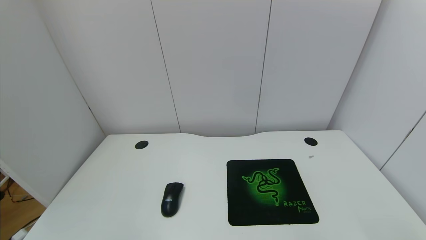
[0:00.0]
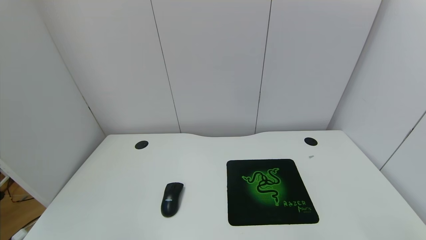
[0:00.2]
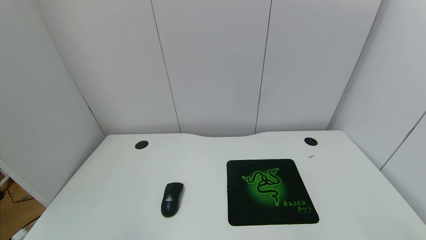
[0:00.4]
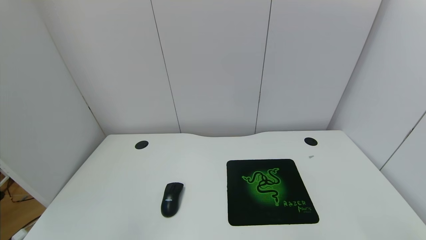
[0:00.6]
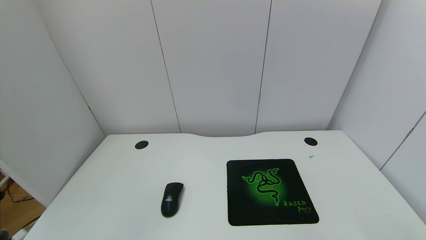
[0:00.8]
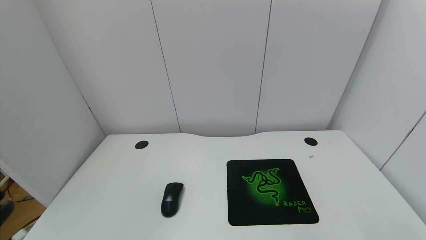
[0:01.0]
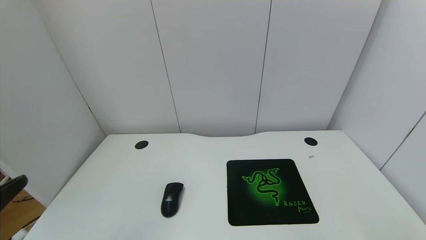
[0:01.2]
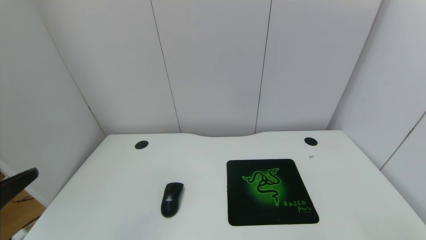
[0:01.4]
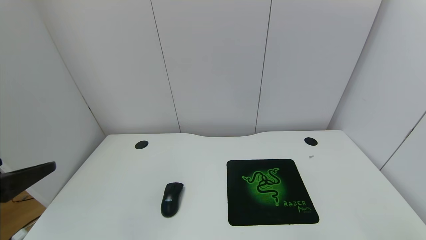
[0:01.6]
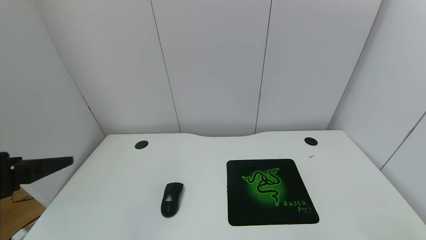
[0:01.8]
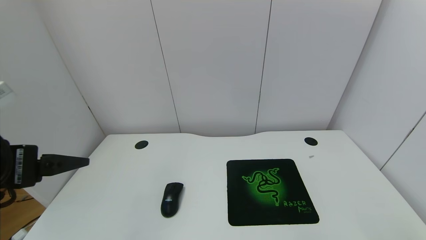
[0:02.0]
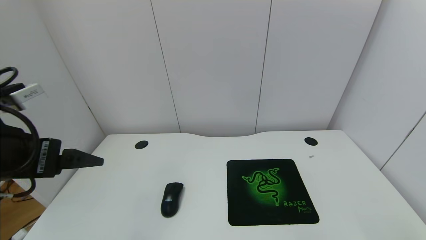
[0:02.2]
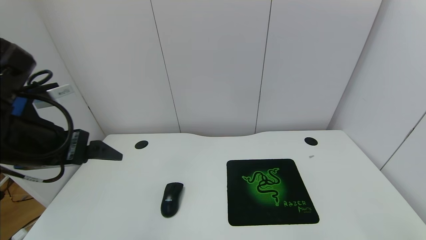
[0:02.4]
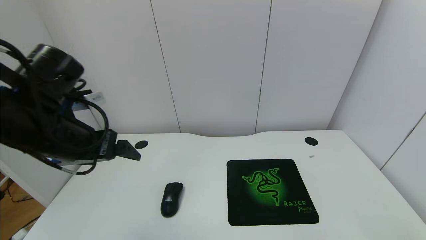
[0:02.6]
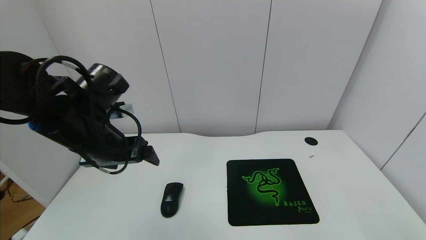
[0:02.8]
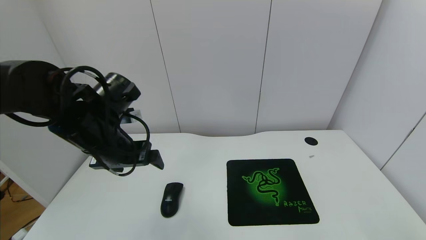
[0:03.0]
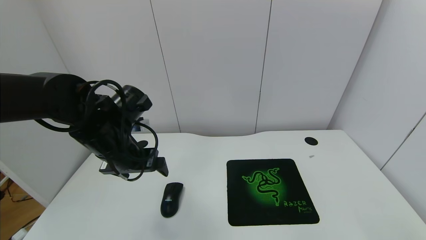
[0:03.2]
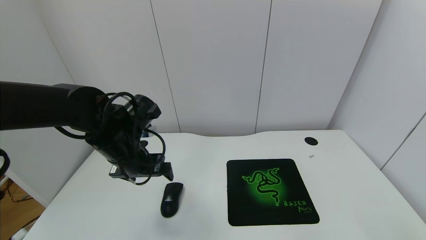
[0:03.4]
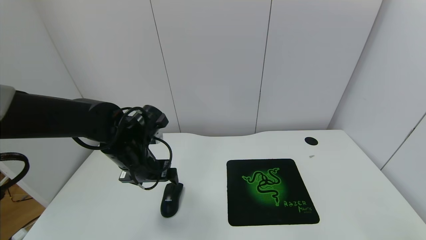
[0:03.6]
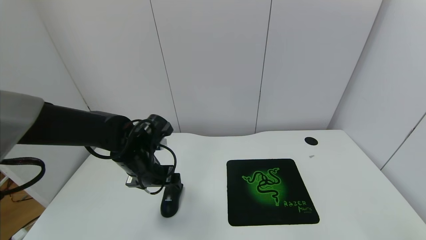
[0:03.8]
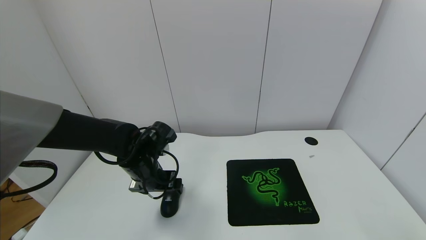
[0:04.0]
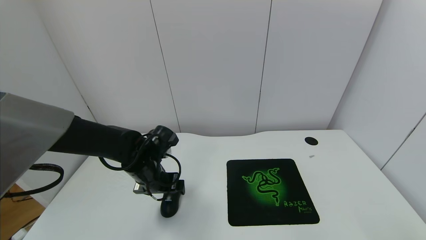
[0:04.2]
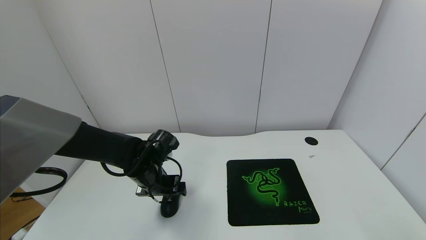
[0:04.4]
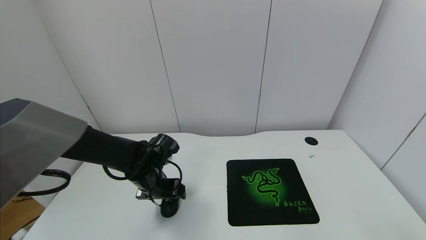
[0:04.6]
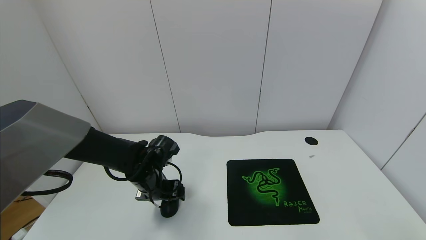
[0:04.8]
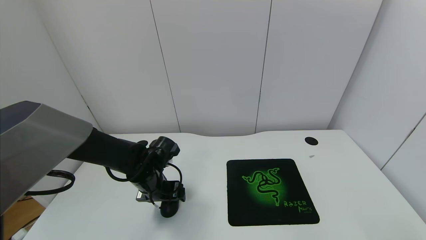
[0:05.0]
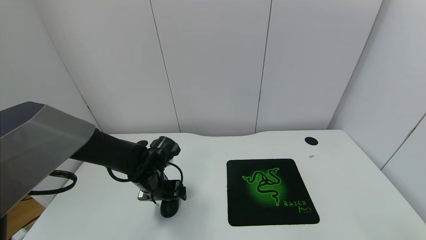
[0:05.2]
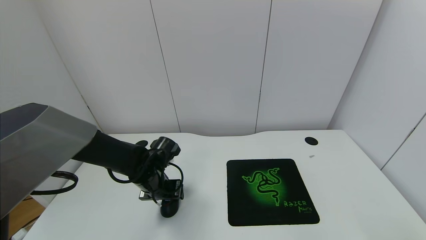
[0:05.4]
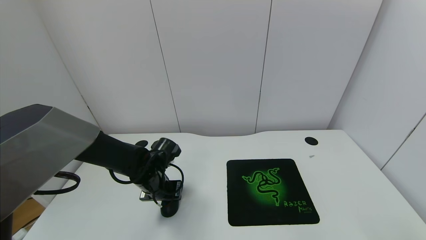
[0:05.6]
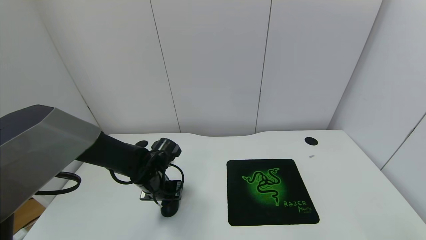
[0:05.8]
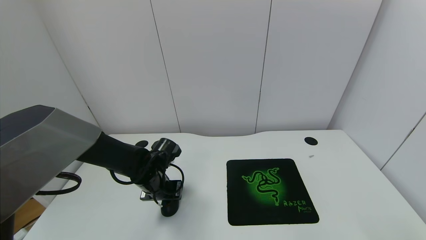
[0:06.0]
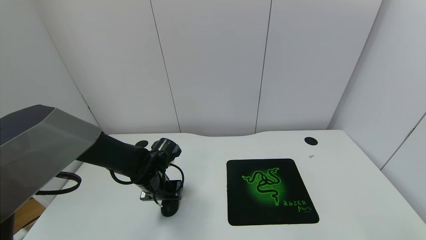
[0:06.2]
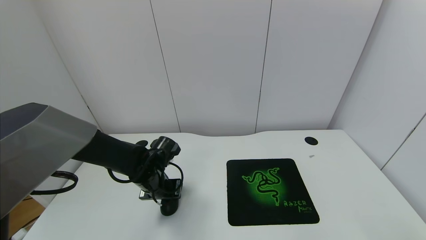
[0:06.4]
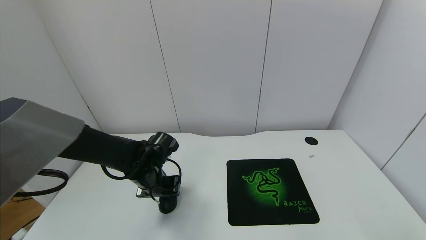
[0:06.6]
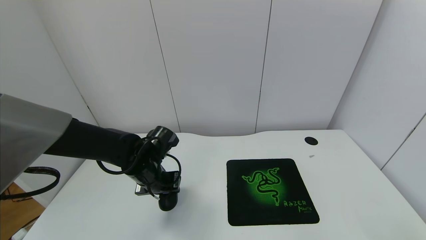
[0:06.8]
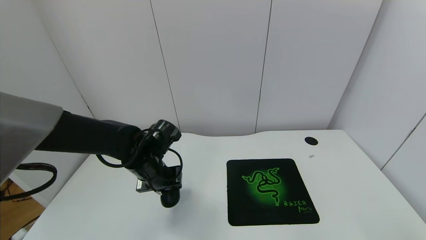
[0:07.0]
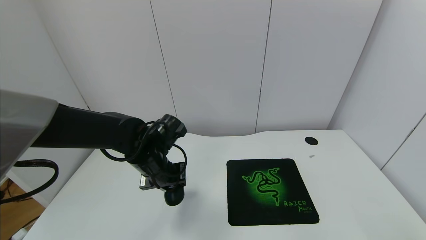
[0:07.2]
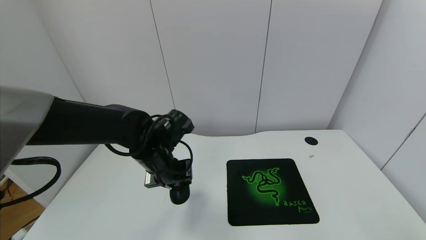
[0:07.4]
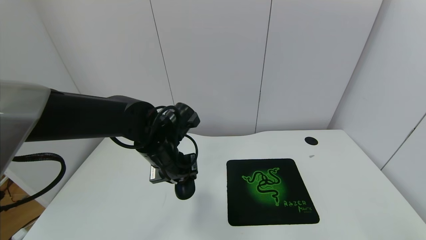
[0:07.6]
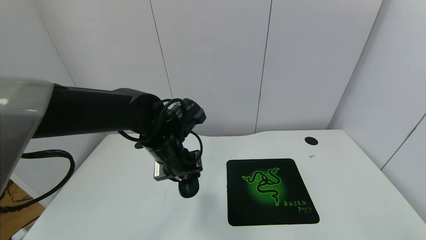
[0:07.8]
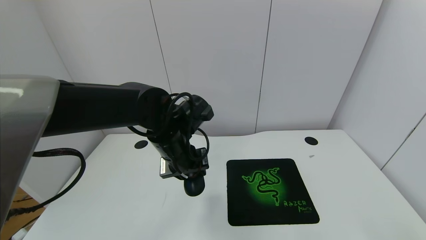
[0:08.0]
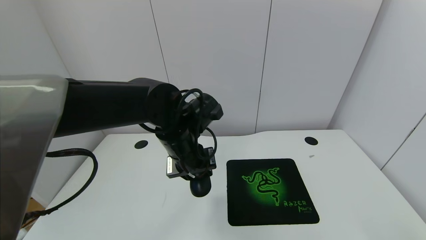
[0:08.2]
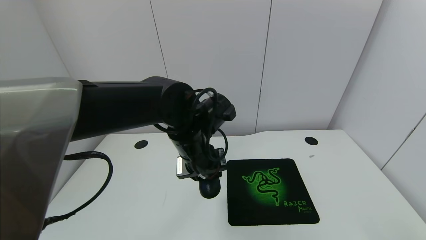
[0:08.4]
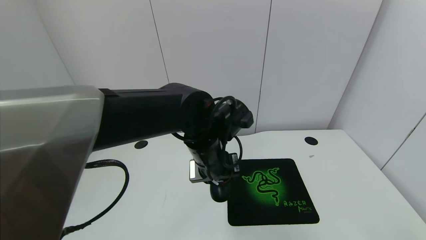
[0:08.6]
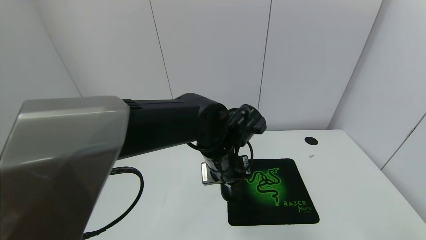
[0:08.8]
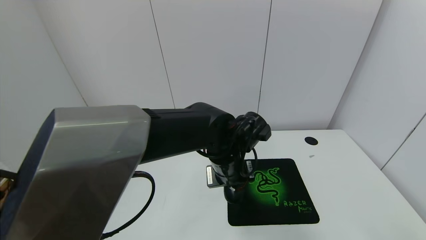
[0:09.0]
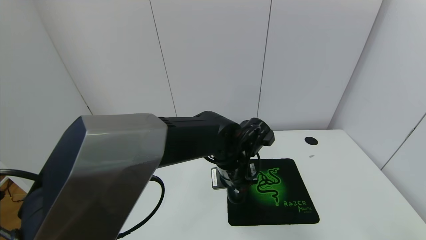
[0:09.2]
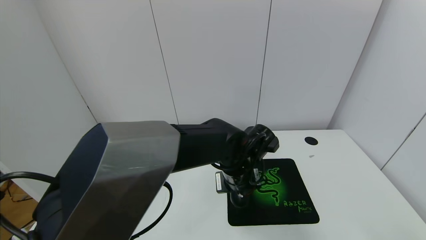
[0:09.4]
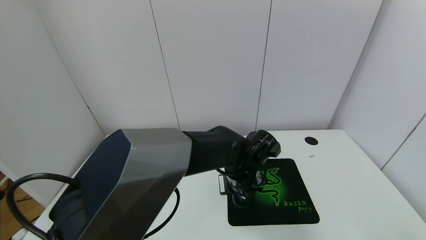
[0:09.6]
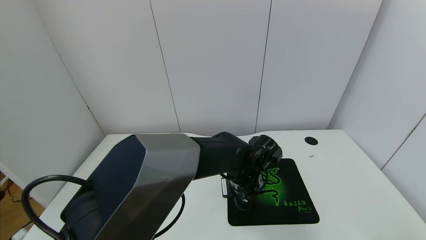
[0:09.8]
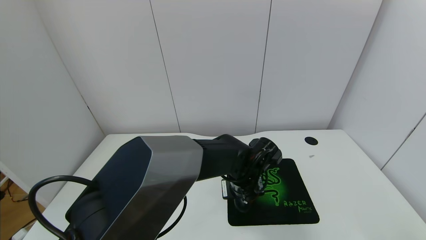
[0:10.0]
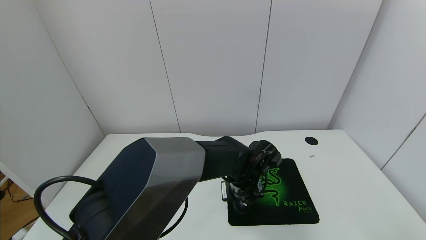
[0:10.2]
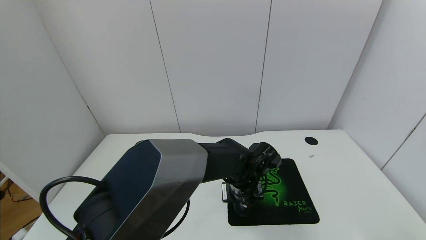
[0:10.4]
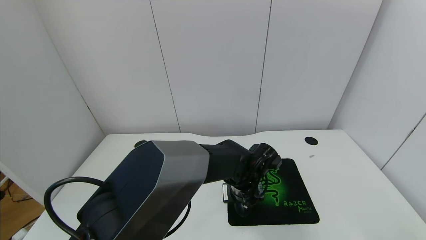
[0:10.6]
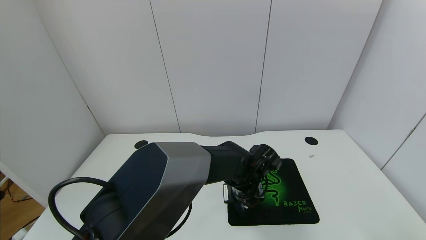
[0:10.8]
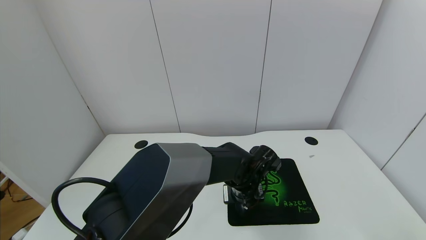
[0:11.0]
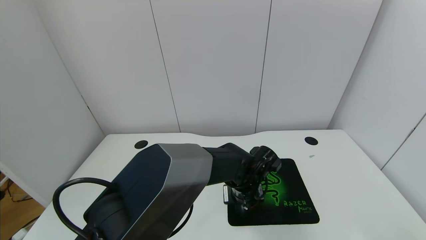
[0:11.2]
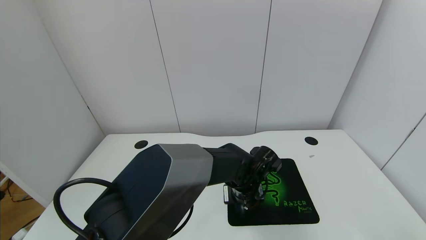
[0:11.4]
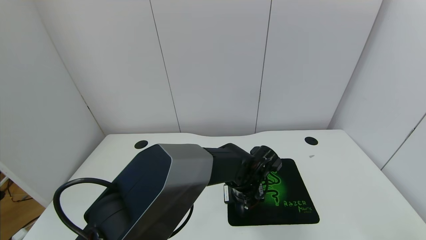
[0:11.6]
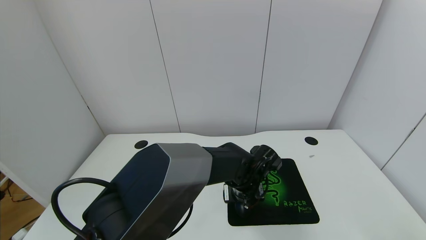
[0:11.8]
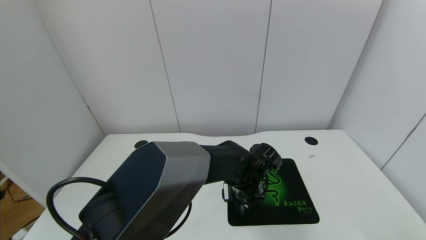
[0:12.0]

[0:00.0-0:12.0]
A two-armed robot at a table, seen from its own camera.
Task of the whole recording: use the gripper to move the mouse from one side of the table to the mouse pad on the opposite side.
Step, 0:00.0 to 0:06.0: Grasp the mouse with the left gripper.
0:00.0 to 0:01.6: The left gripper travels upward and forward by approximately 20 cm.
0:01.6 to 0:03.0: The left gripper shifts approximately 20 cm forward and to the right.
0:03.0 to 0:04.4: The left gripper heads downward, covering roughly 15 cm.
0:04.4 to 0:06.0: The left gripper closes.
0:06.0 to 0:07.6: The left gripper heads upward and to the right, covering roughly 15 cm.
0:07.6 to 0:09.0: The left gripper goes roughly 15 cm to the right.
0:09.0 to 0:10.4: The left gripper heads downward, covering some 10 cm.
0:10.4 to 0:12.0: The left gripper opens.

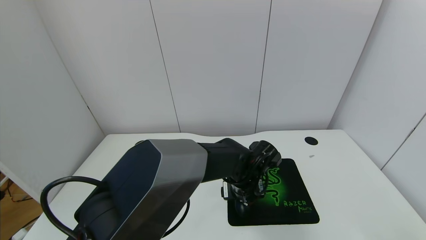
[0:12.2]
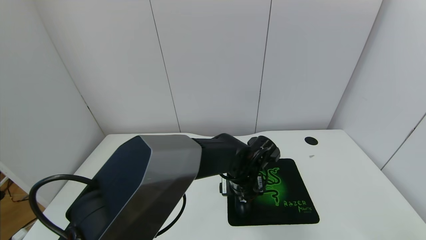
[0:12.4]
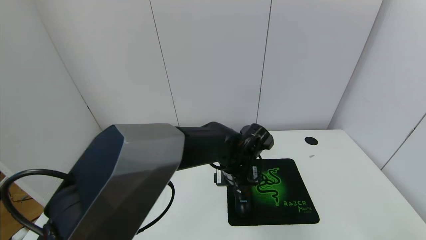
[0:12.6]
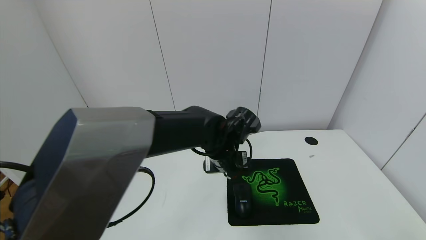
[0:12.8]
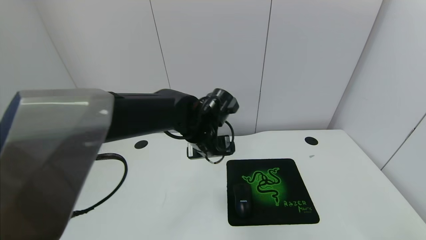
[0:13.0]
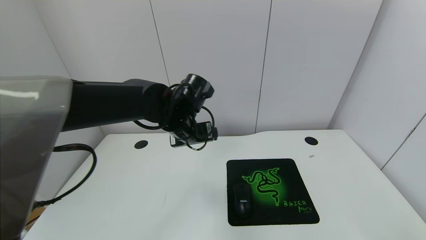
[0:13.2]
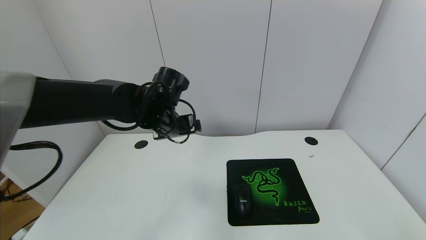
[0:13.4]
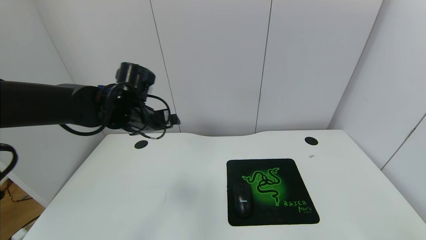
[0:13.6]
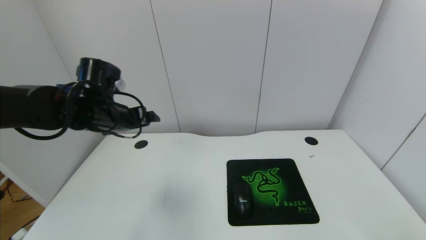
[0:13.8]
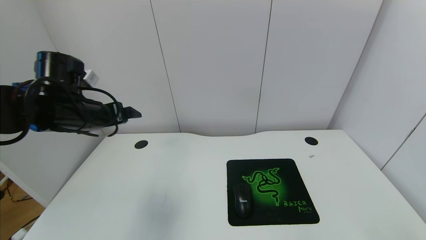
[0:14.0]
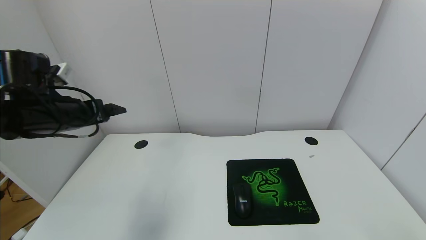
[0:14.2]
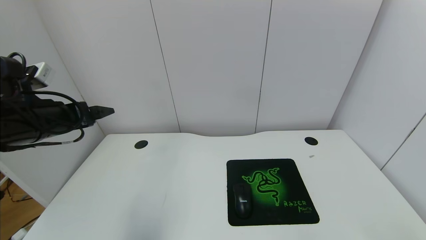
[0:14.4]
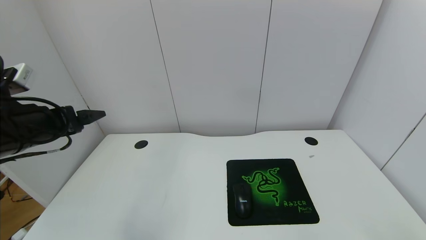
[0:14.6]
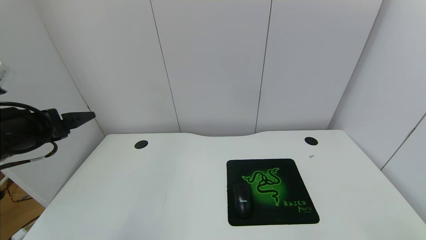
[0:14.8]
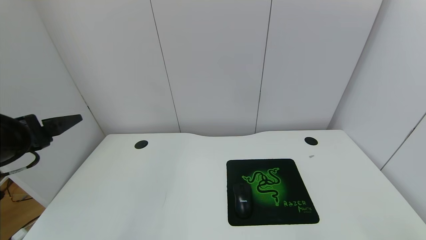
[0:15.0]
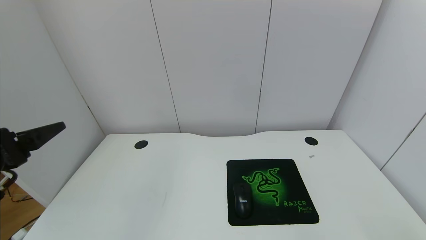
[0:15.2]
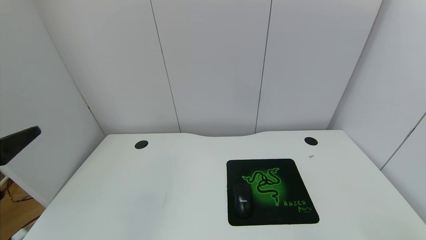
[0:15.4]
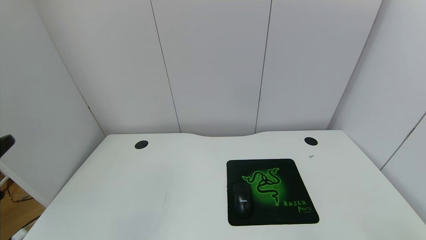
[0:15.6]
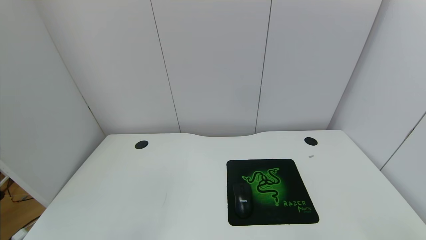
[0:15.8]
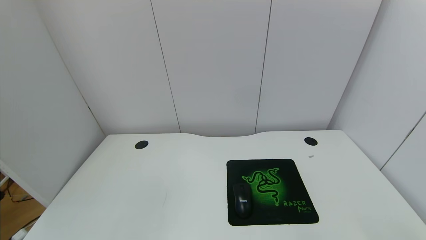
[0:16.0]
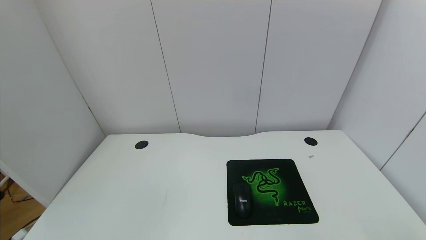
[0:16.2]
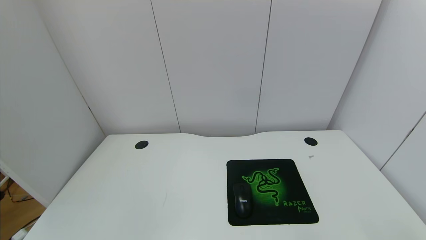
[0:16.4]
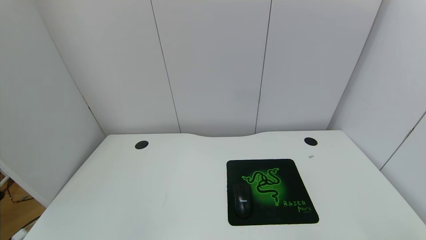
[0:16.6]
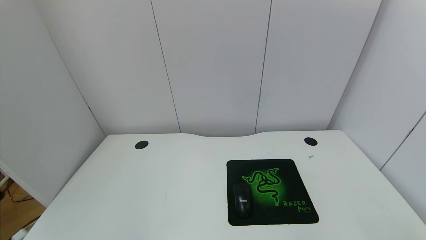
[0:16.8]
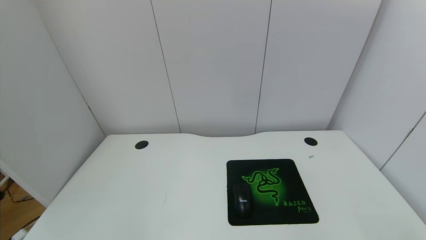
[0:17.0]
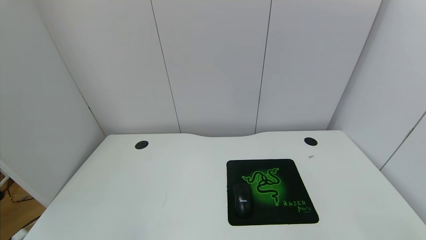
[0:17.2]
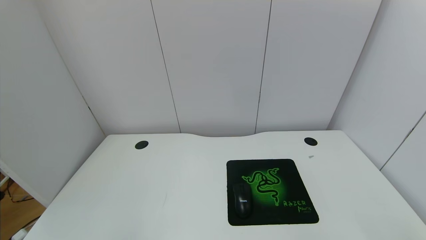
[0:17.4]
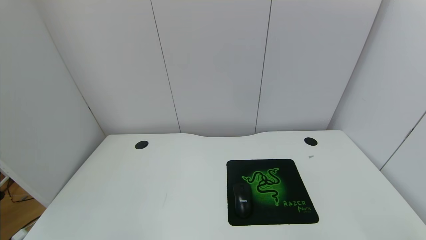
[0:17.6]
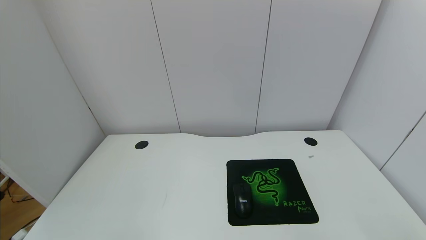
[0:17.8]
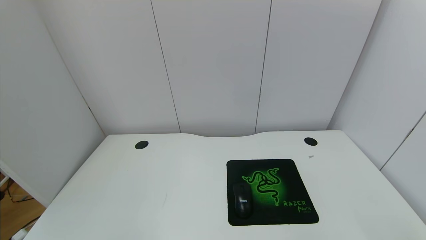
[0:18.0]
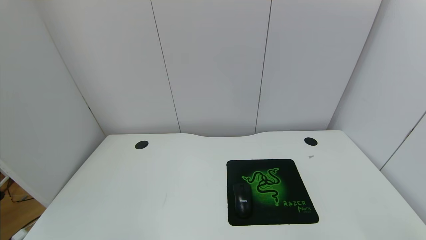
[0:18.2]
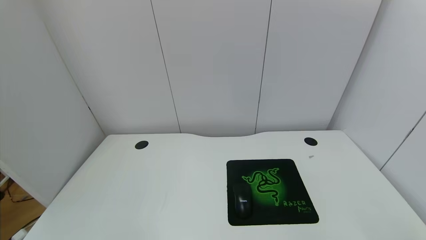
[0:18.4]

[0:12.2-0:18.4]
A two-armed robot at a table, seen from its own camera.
Task of the whole recording: use the gripper to move the mouse from one side of the table to the mouse pad on the opposite side.
0:12.2 to 0:13.8: The left gripper moves to the left and upward, some 35 cm.
0:13.8 to 0:15.4: The left gripper goes approximately 25 cm backward.
0:15.4 to 0:16.8: The left gripper travels backward and downward by about 15 cm.
